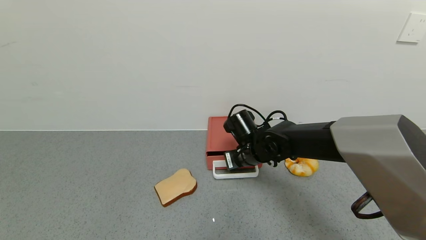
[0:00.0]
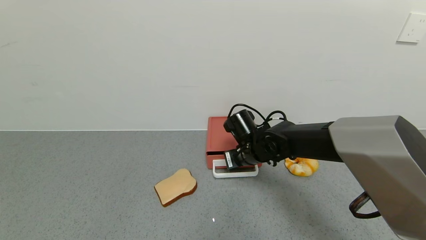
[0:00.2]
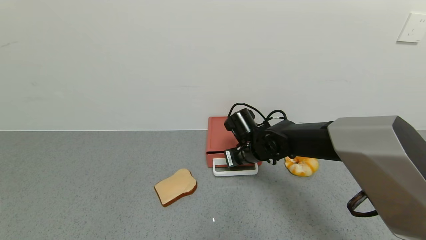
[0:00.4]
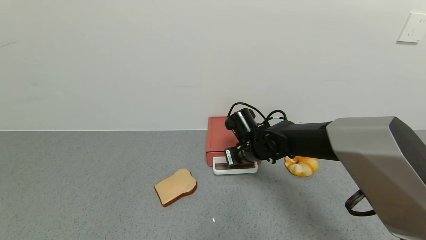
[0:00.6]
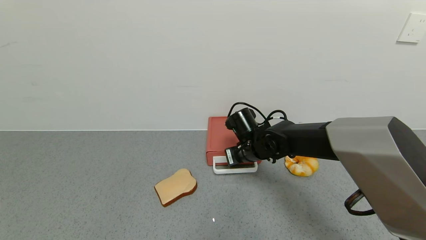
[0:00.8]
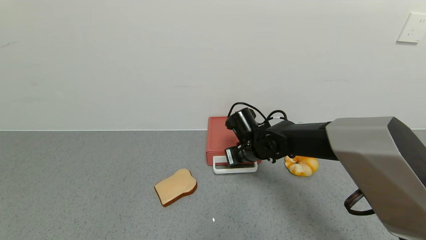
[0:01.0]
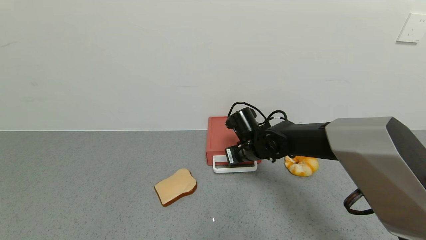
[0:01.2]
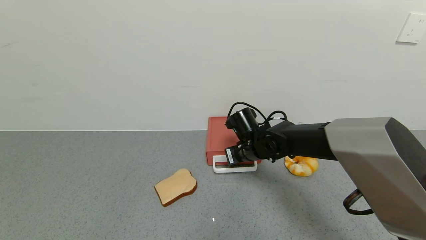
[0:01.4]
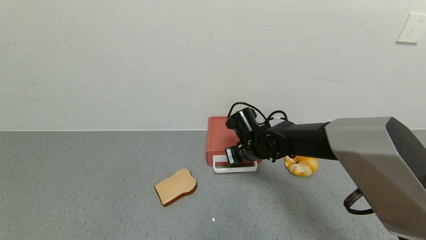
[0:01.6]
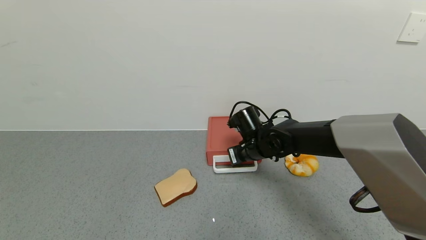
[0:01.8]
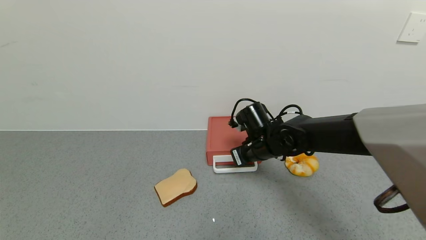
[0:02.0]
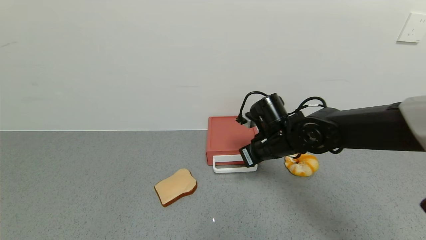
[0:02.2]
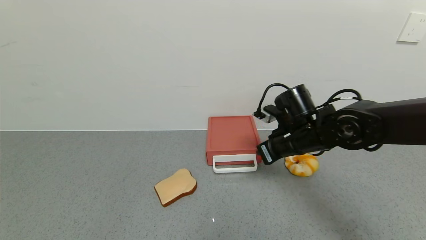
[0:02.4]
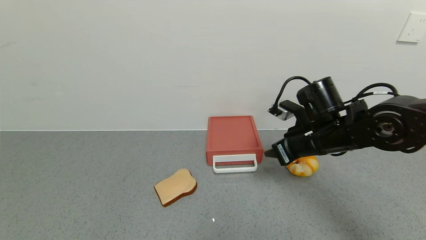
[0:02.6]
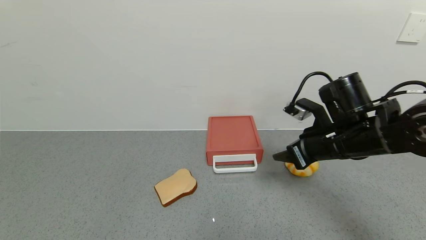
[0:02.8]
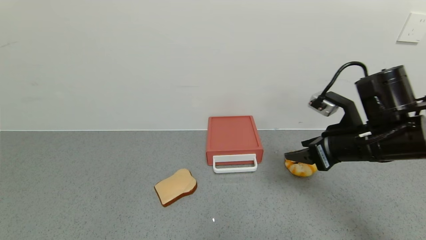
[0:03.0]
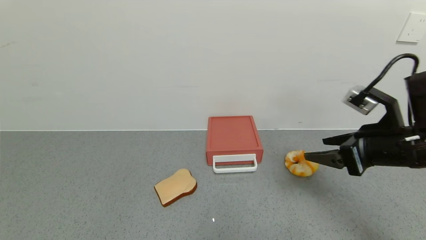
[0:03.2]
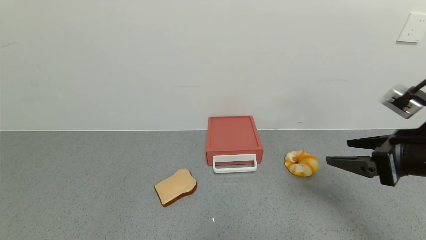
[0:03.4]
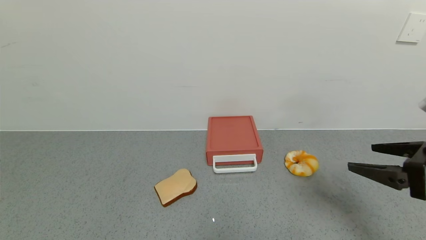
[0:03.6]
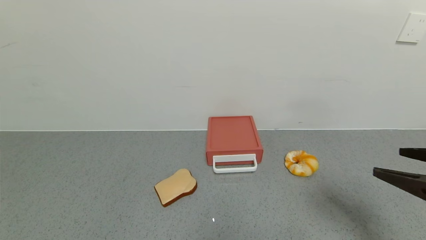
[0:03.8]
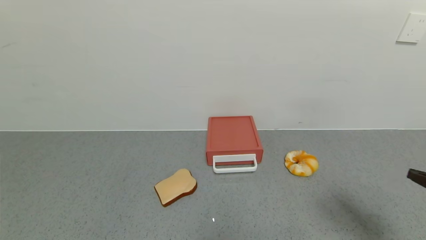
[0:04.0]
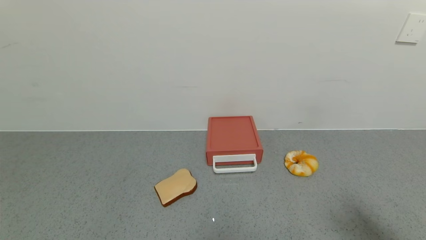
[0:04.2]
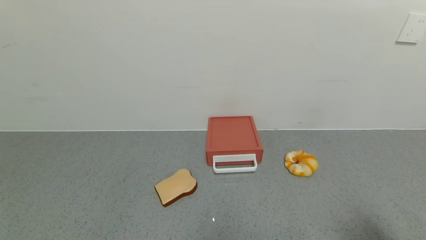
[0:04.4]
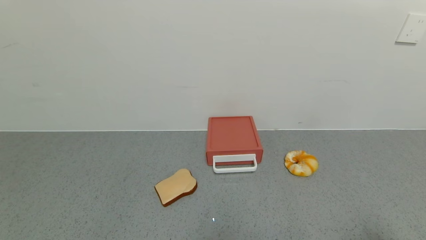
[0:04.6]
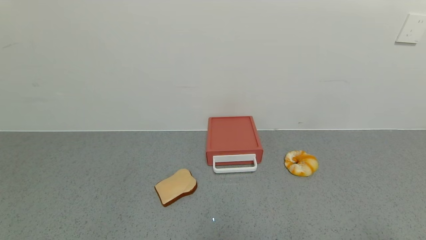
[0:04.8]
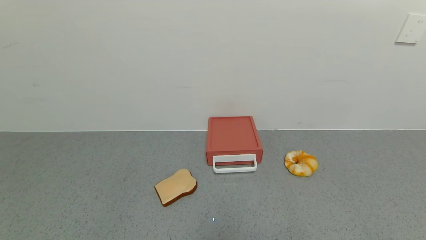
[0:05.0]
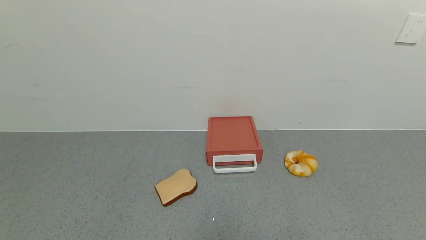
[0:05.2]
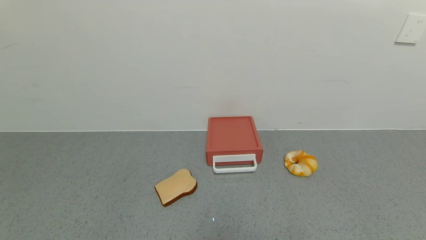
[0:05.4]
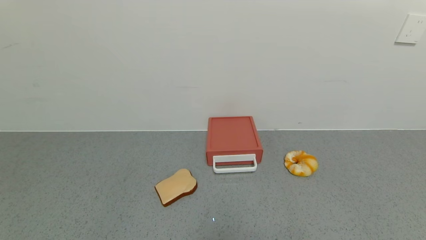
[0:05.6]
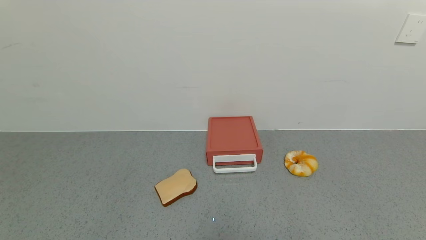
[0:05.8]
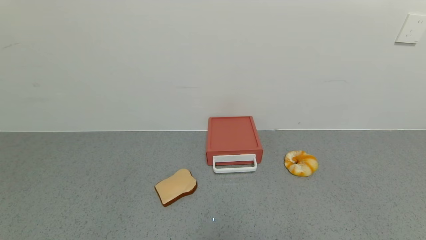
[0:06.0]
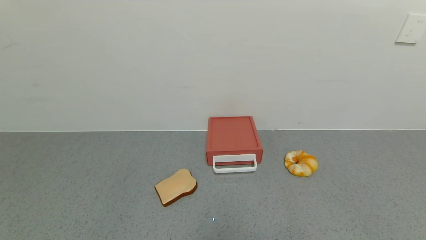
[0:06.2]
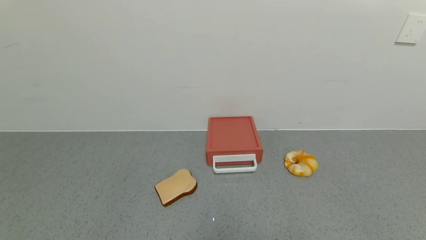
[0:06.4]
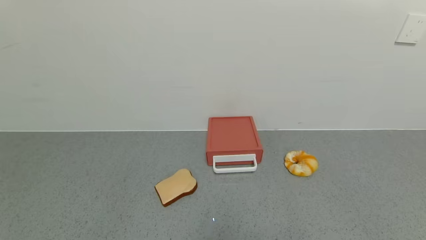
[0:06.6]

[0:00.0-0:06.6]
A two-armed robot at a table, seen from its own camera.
Task of the whole recording: use the gripper to open the drawer and close the red drawer.
Step, 0:00.0 to 0:02.4: Close the red drawer with the right gripper.
0:00.0 to 0:01.6: The grippers stay close to where they were, moving slightly.
0:01.6 to 0:03.2: The right gripper moves to the right, backward and upward, about 30 cm, and opens its fingers.
0:03.2 to 0:05.0: The right gripper moves backward, roughly 30 cm.
